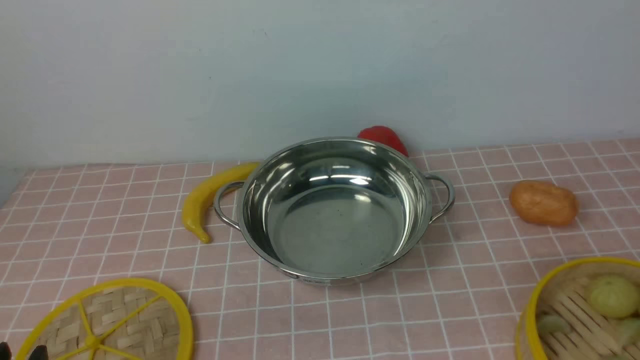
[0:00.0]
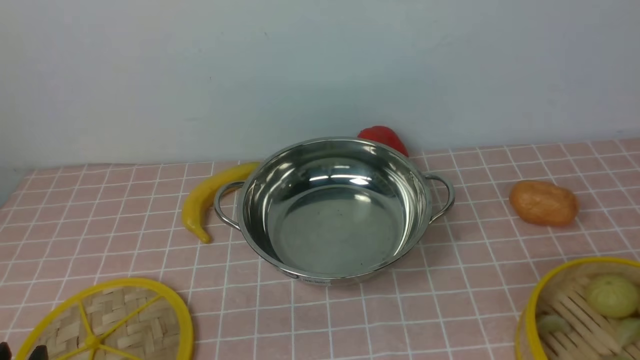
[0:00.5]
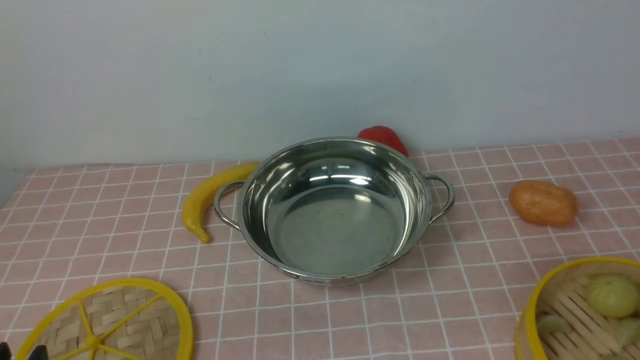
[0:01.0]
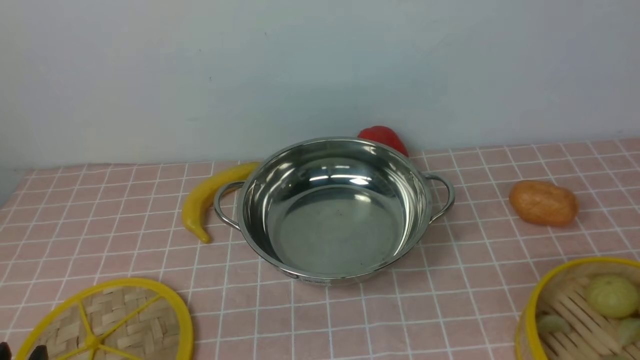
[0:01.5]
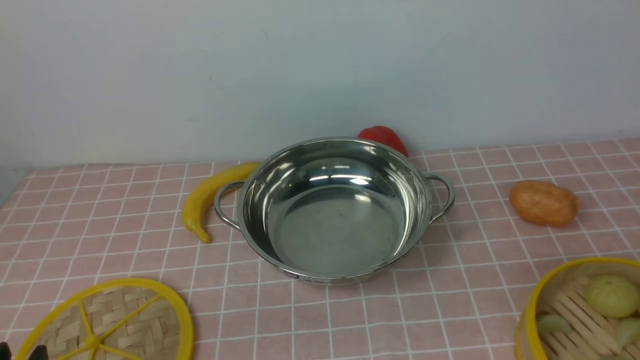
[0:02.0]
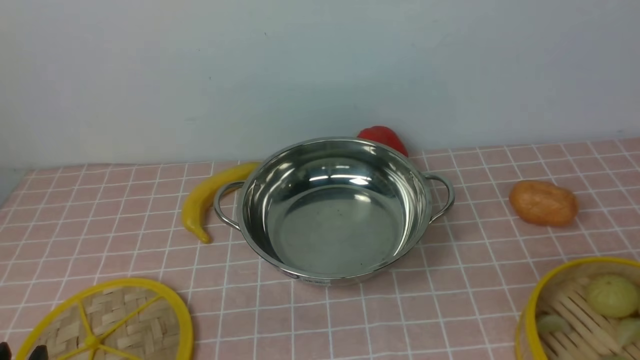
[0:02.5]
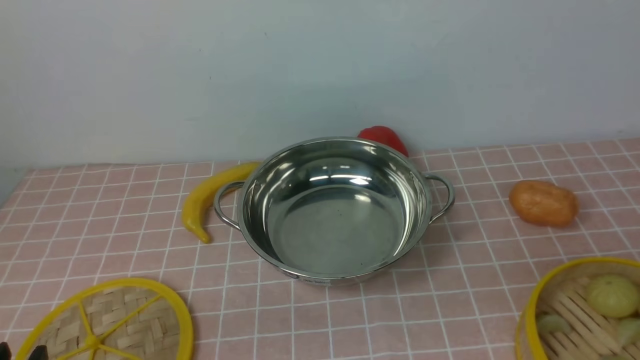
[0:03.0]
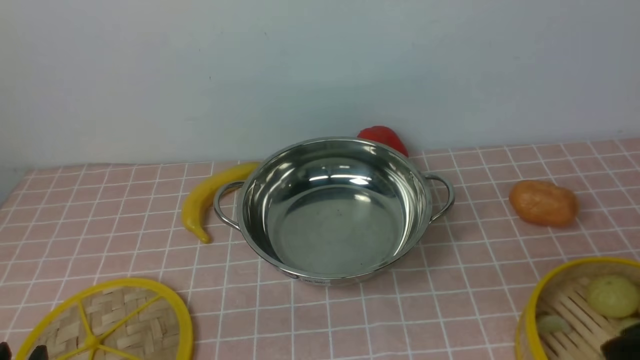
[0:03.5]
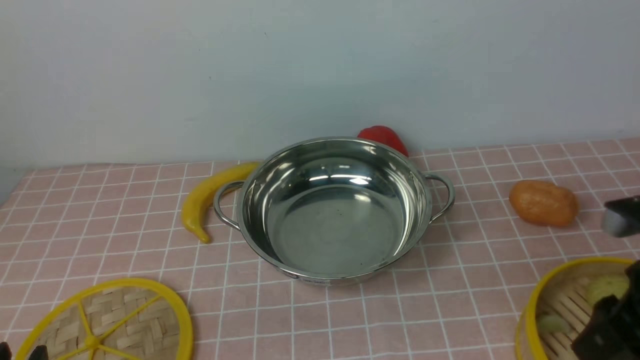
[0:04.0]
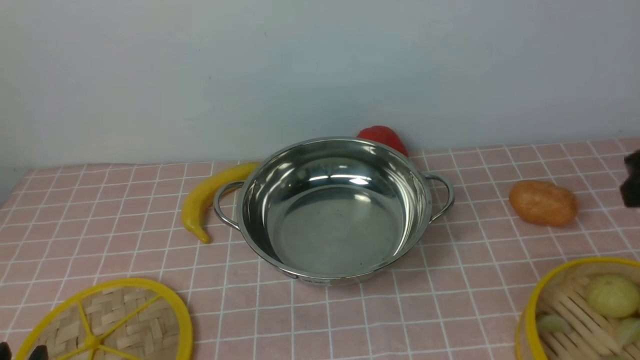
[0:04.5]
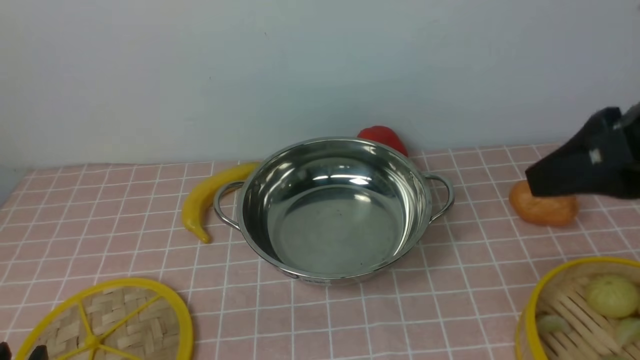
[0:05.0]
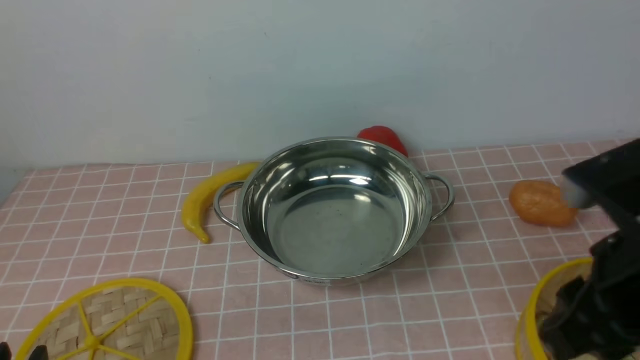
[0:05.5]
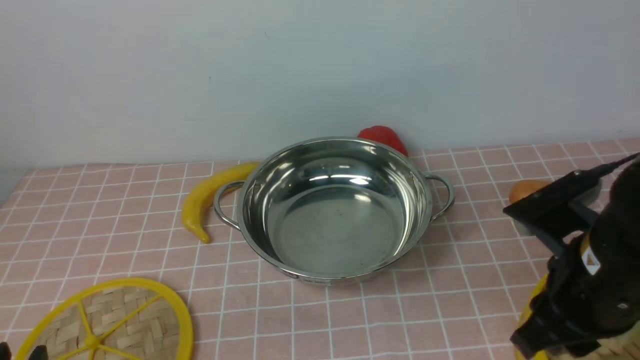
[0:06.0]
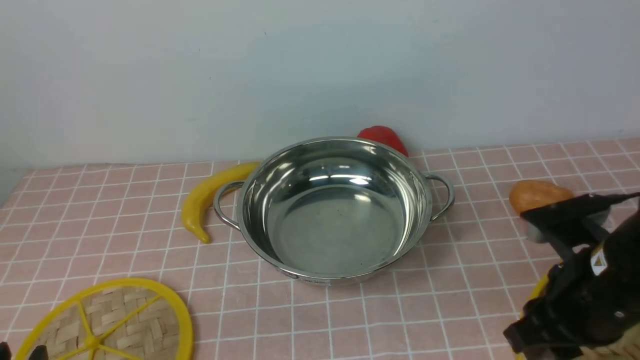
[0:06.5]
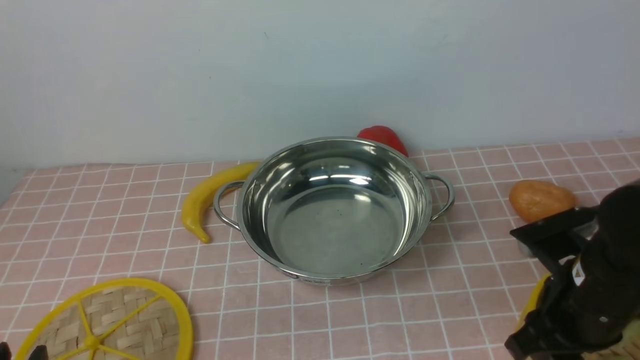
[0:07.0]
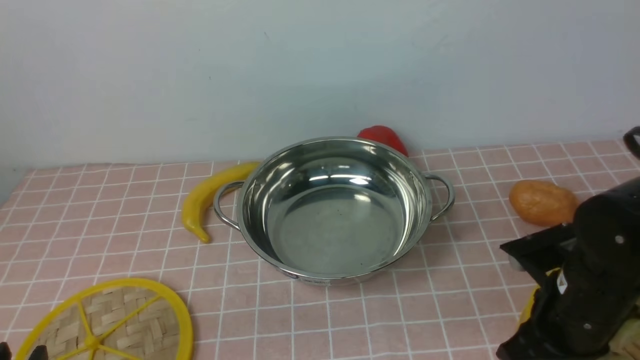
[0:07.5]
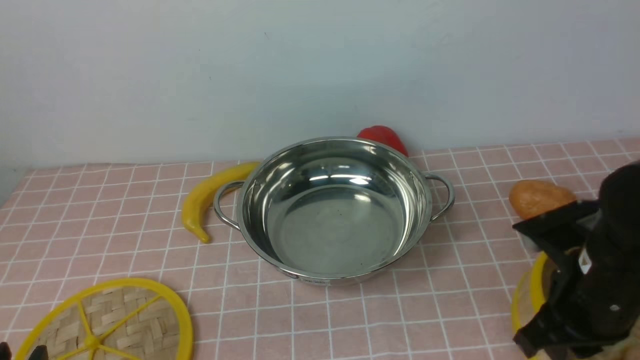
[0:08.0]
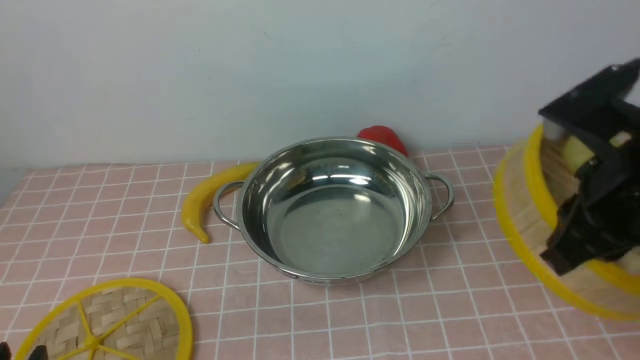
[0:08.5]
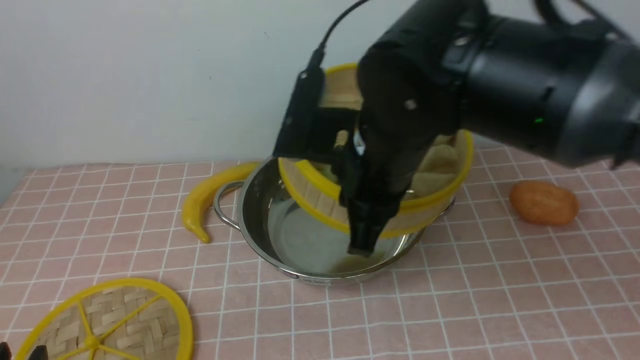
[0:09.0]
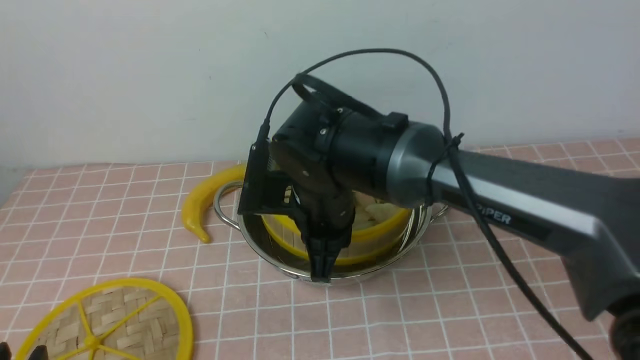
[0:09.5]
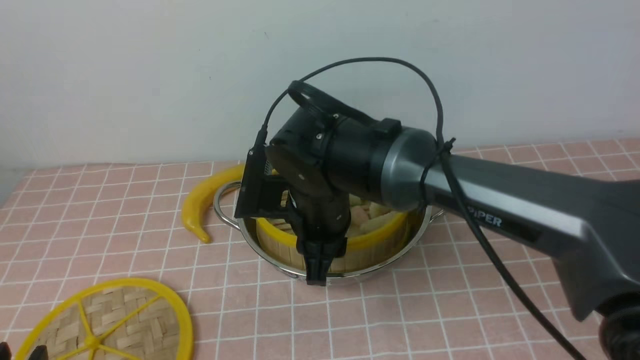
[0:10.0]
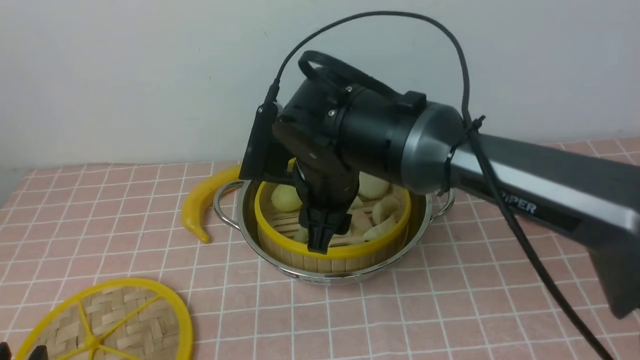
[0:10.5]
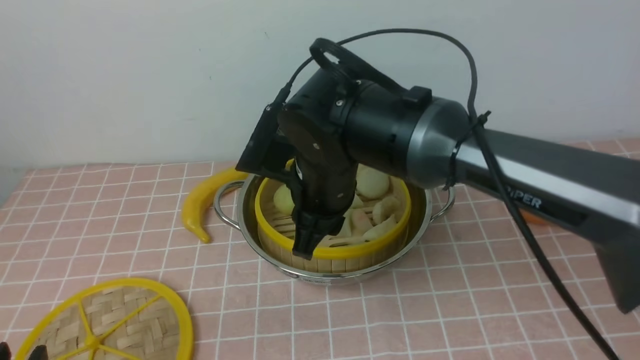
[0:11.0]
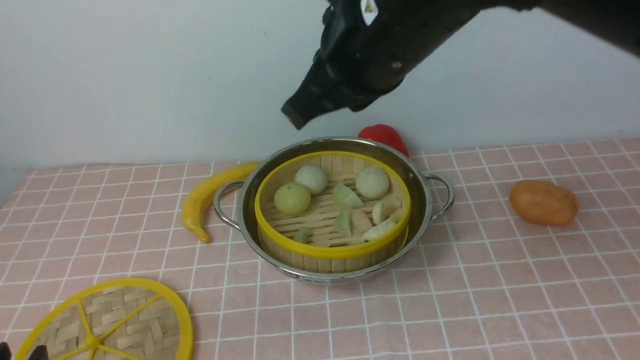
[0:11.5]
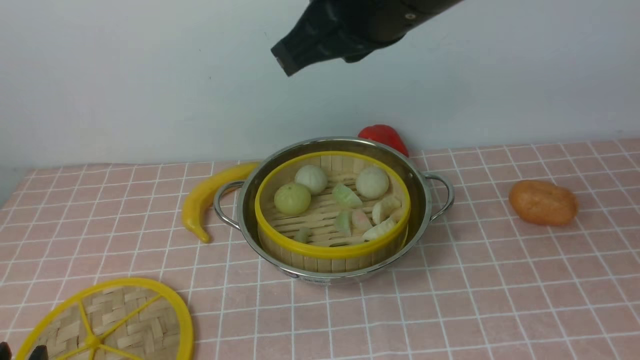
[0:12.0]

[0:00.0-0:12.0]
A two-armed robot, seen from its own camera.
Task of the whole recording: place the steamer in the pot on the pink tablecloth, and put the lid on the steamer.
Step, 0:00.0 to 0:08.0: use the right arm to lift the steamer closest to it.
Step, 0:08.5 to 0:11.0: use the right arm to put the steamer into the iron steamer pot in the middle.
0:02.0 to 0:04.0: The right gripper travels forward by some 15 cm.
0:04.0 to 0:06.0: The right gripper heads to the left, covering about 5 cm, and goes upward and returns, some 10 cm each way.
0:06.0 to 0:08.0: The right gripper closes its fingers.
0:08.0 to 0:10.0: The right gripper moves to the left and forward, about 25 cm, and opens up.
0:10.0 to 0:12.0: The right gripper moves upward, about 20 cm, and closes up.

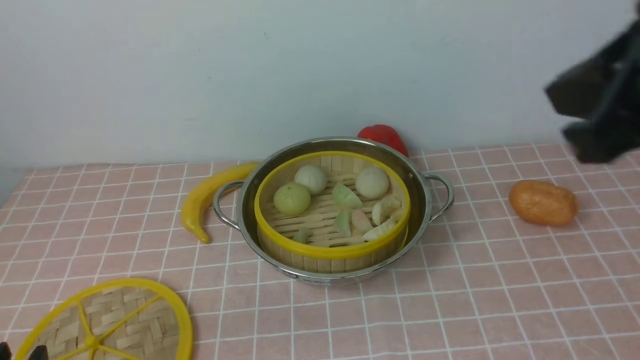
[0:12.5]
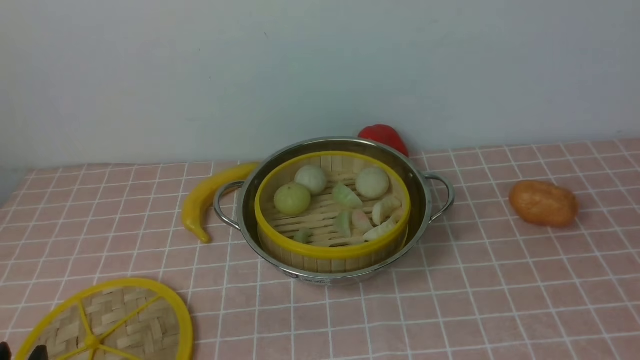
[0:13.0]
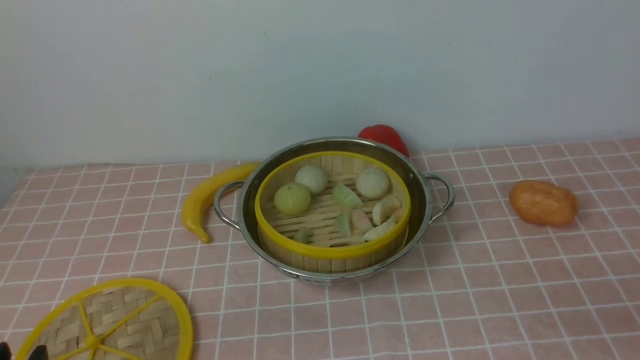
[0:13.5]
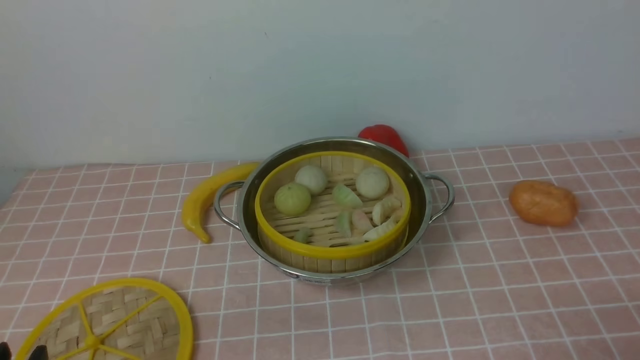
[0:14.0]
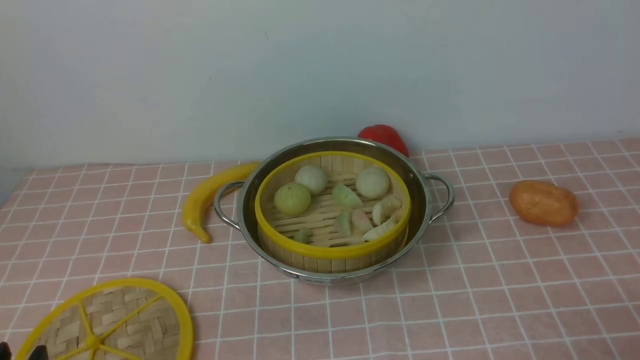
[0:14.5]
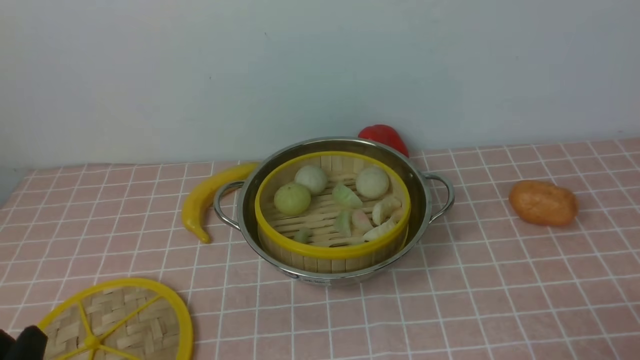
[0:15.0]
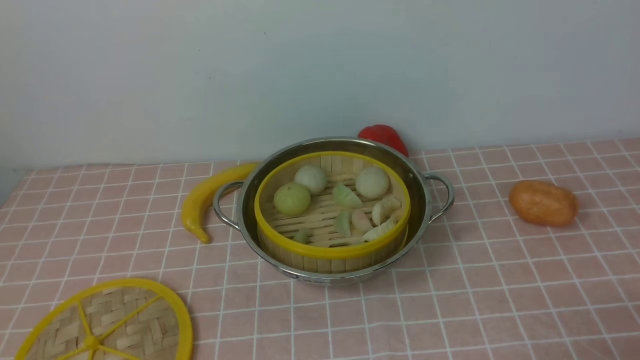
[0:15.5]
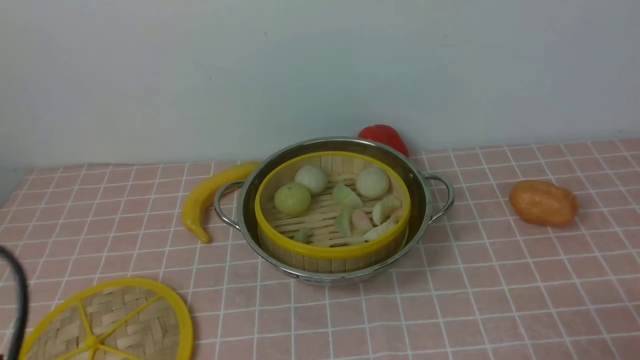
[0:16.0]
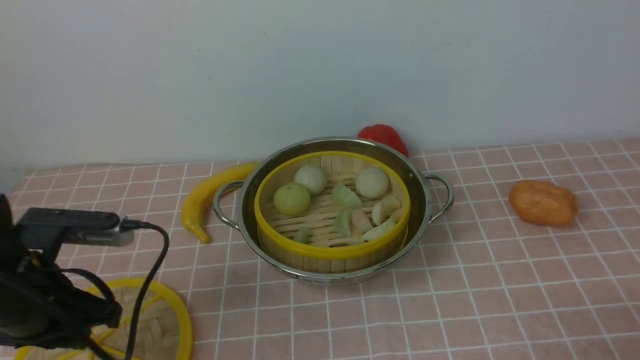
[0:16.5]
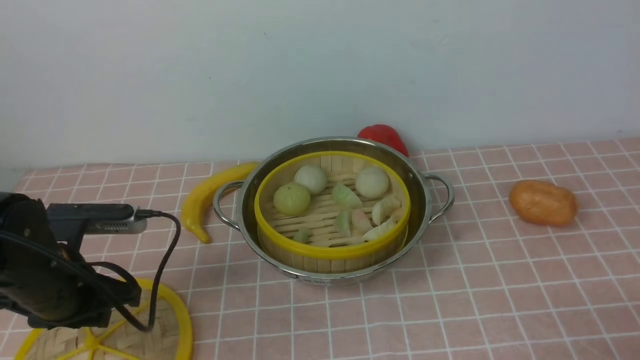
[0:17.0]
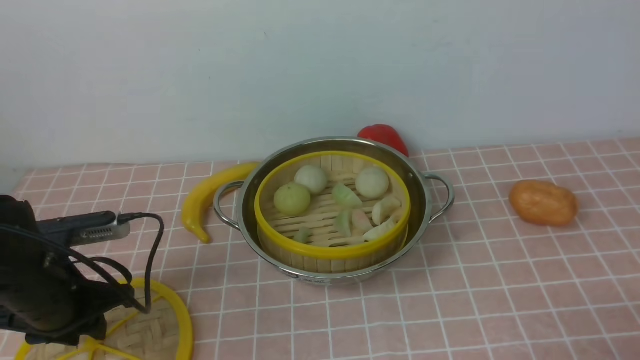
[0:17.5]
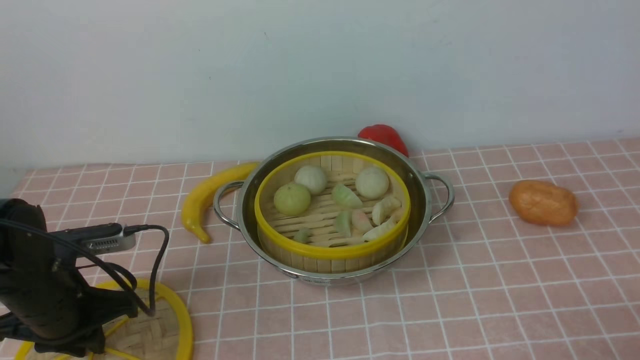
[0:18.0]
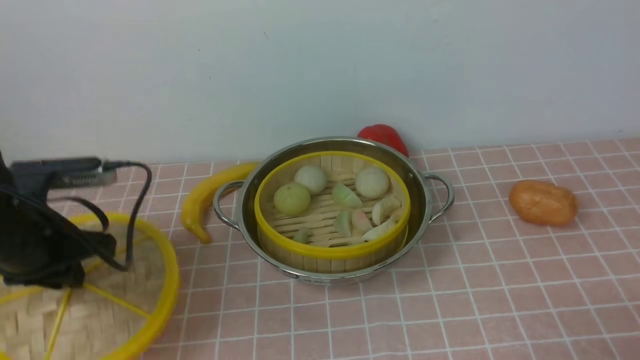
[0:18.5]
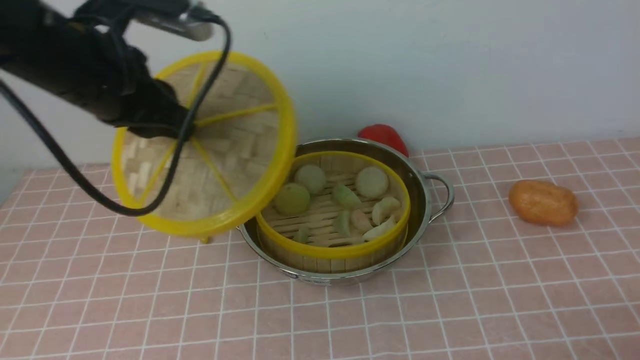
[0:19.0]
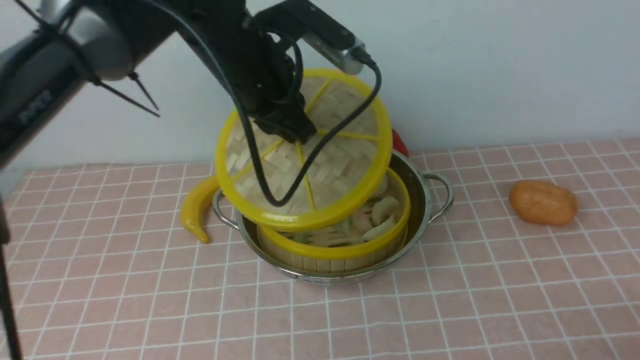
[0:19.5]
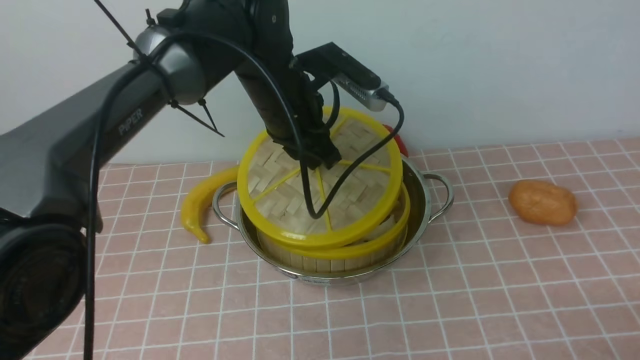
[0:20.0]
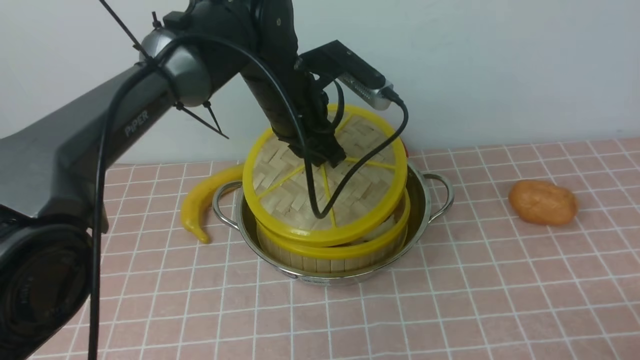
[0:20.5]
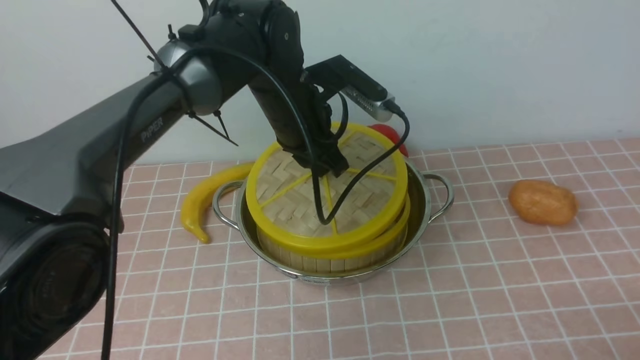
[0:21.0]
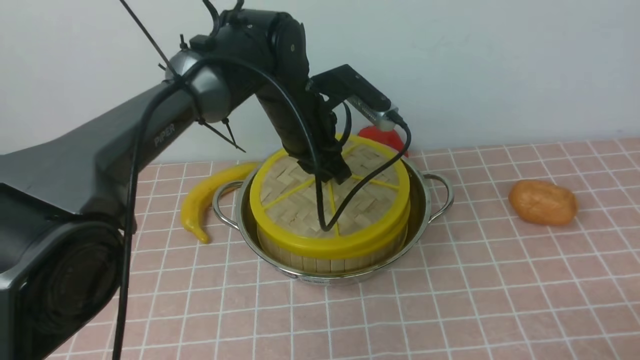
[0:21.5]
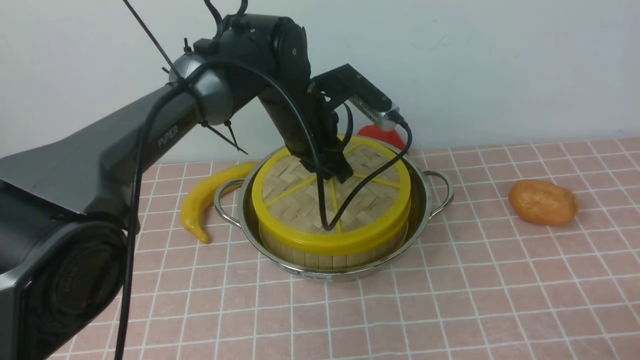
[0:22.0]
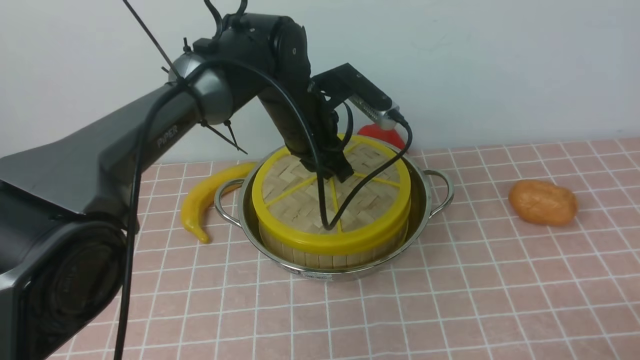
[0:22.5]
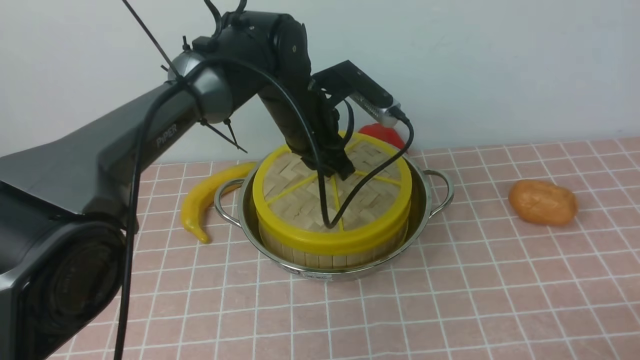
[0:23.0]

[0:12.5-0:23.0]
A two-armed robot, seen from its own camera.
Task of the whole recording: place the steamer in the pot on the pink tablecloth, and put the lid on the steamer.
Step, 0:12.5 to 0:18.0: use the left arm to lift the lid of the steamer.
0:12.5 to 0:14.5: The right gripper heads downward, backward and to the right, covering some 30 cm, and opens.
0:14.5 to 0:16.5: The left gripper heads forward, covering about 15 cm.
0:16.5 to 0:19.0: The left gripper moves upward, forward and to the right, approximately 20 cm, and closes up.
0:19.0 to 0:21.0: The left gripper goes approximately 20 cm to the right, downward and forward.
0:21.0 to 0:23.0: The grippers stay close to where they were, moving slightly.
